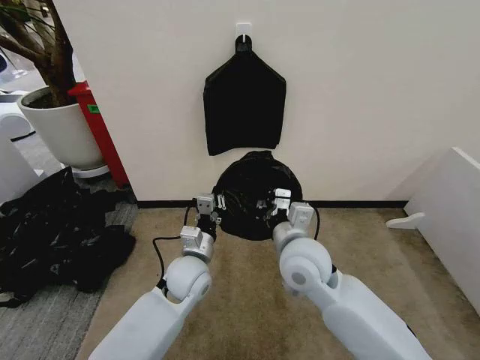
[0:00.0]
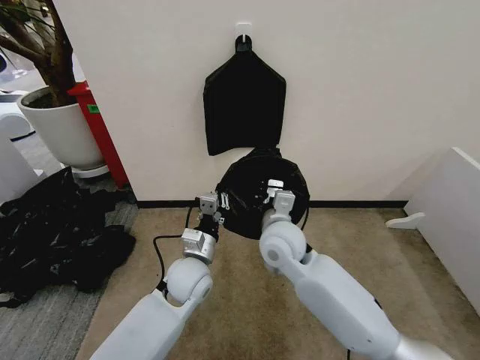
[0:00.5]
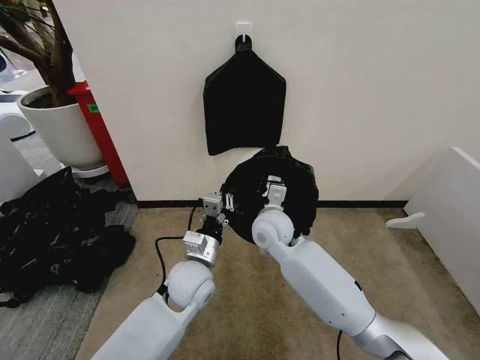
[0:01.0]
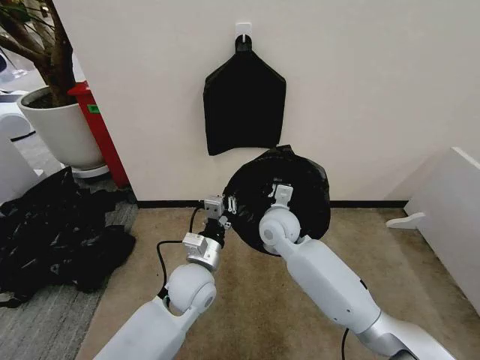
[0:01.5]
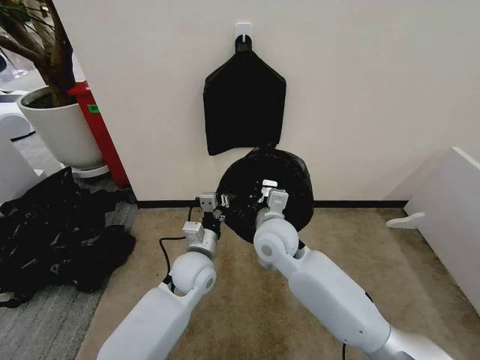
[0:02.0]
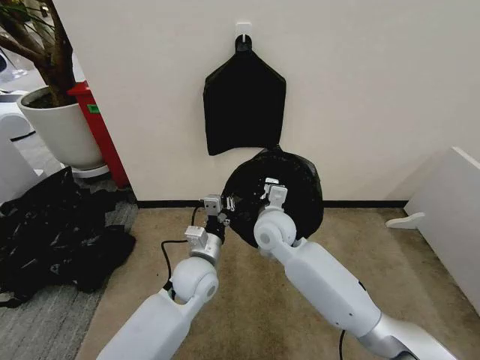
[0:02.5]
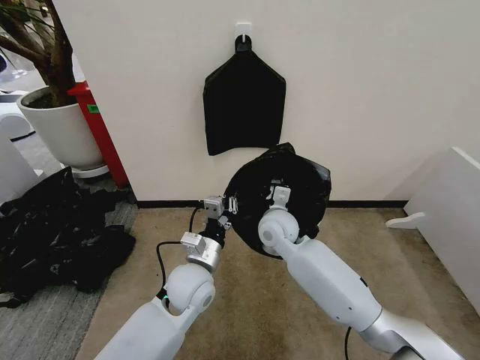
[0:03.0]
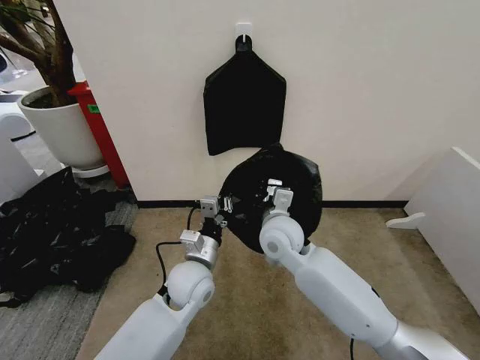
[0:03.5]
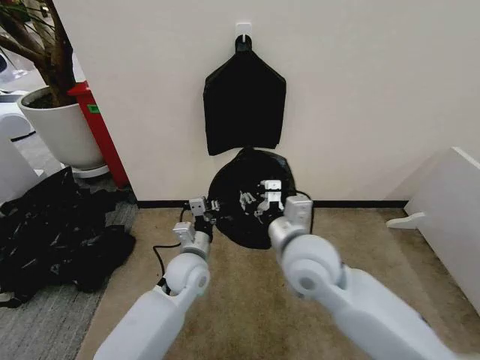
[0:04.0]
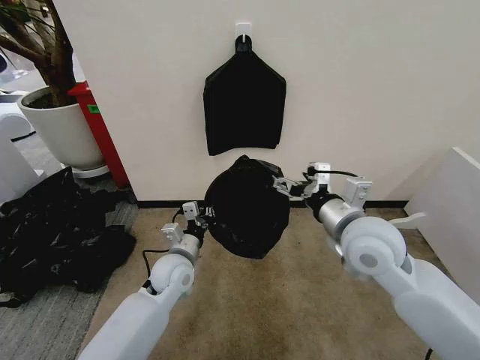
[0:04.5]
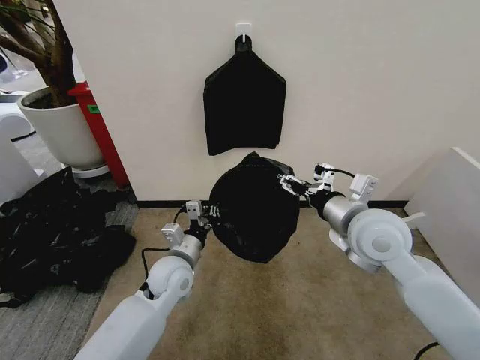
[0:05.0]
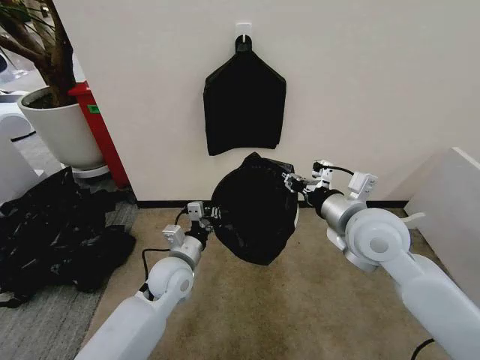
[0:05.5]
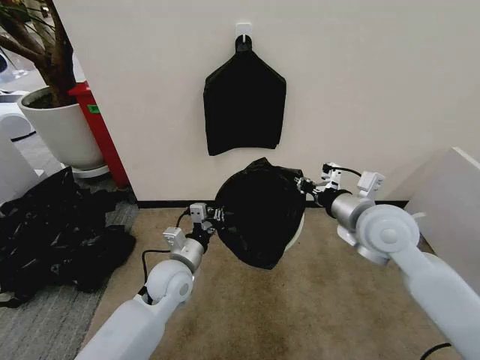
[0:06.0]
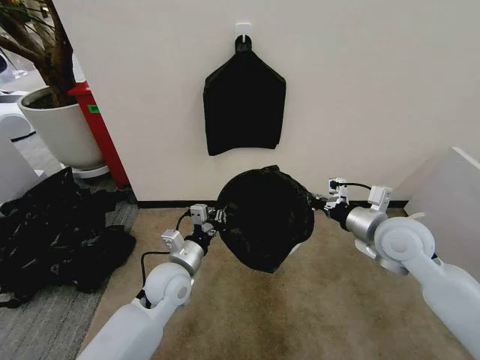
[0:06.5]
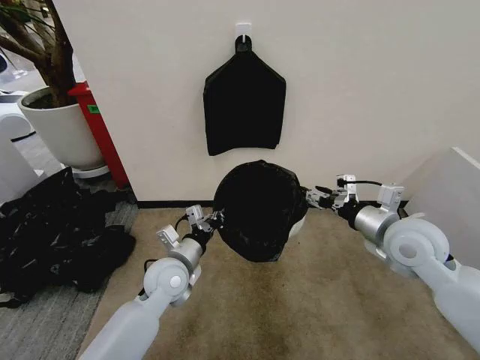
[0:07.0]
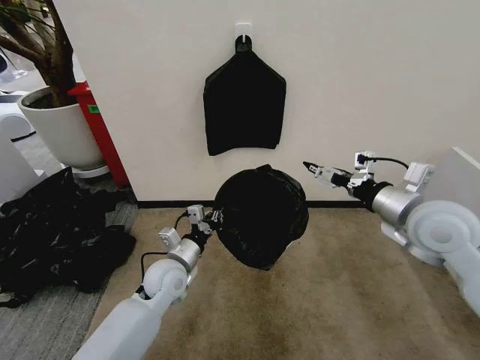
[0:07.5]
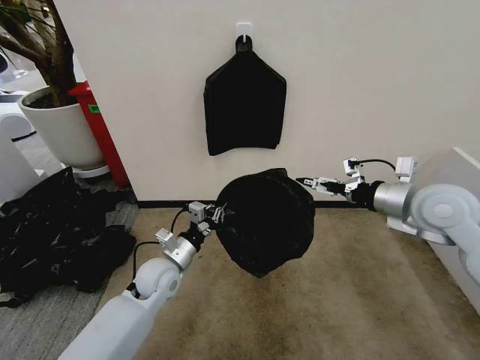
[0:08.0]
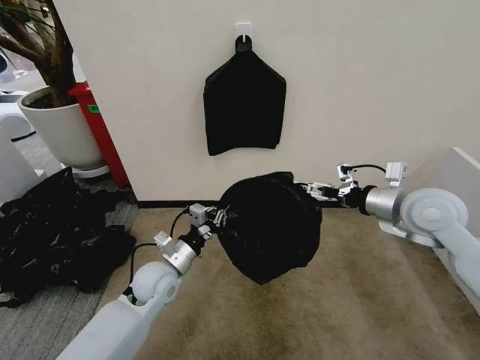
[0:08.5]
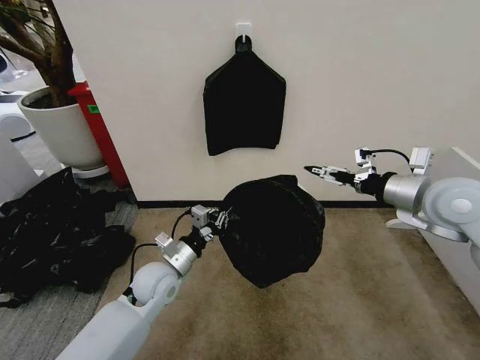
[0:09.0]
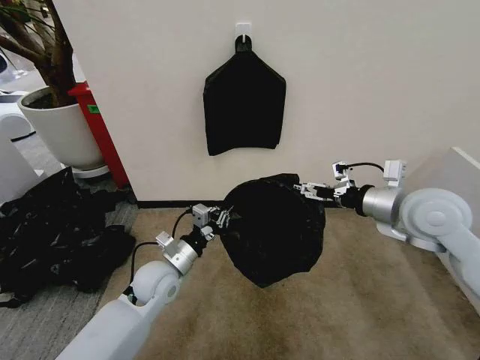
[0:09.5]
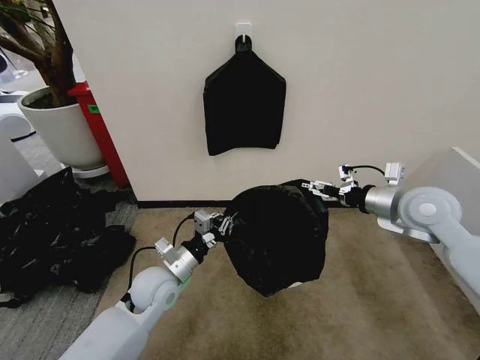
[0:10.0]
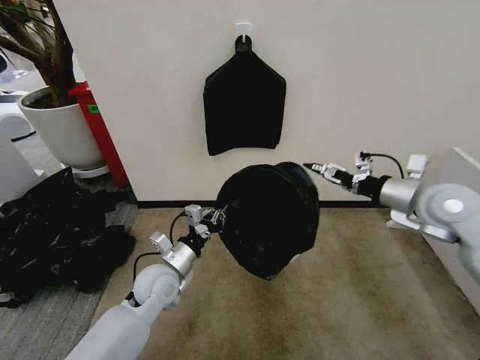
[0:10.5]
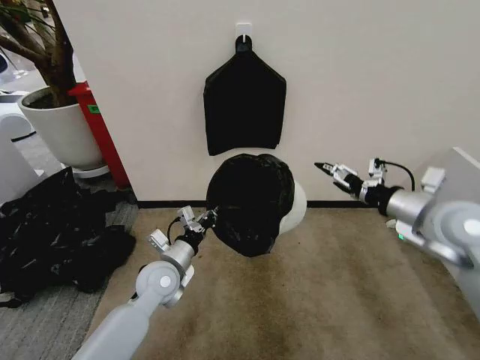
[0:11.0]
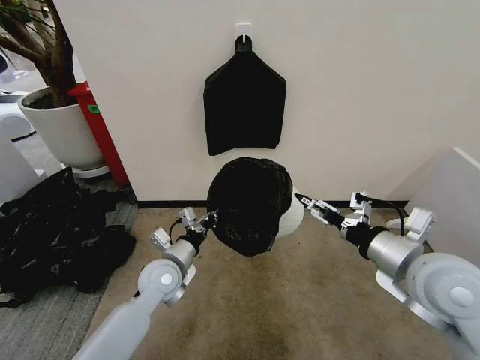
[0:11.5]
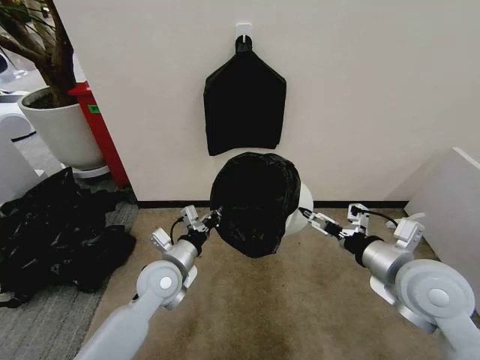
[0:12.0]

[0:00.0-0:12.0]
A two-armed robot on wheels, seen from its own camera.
Task of the whole recording: Place the garbage bag over the trash bin.
0:00.0 to 0:02.0: The right gripper goes some 5 cm forward.
0:02.0 to 0:04.0: The right gripper shifts approximately 10 cm backward and upward, and opens its fingers.
0:04.0 to 0:06.0: The right gripper moves to the right, about 15 cm, and opens and closes again.
0:06.0 to 0:08.0: The right gripper heads to the right, covering some 10 cm, and opens.
0:08.0 to 0:10.0: There are only small adjustments of the grippers.
0:10.0 to 0:12.0: The right gripper moves backward and to the left, approximately 15 cm.

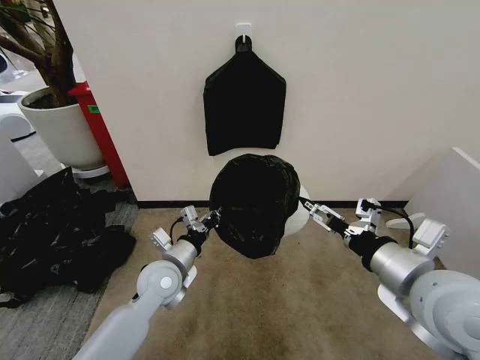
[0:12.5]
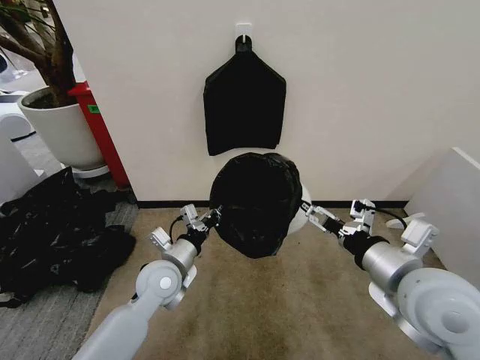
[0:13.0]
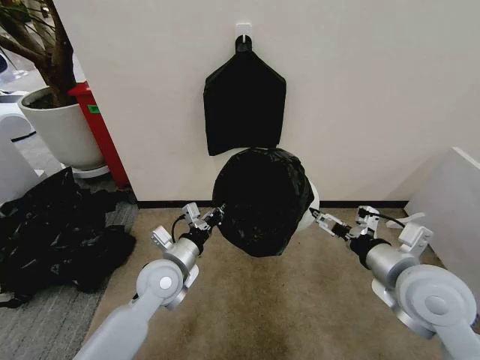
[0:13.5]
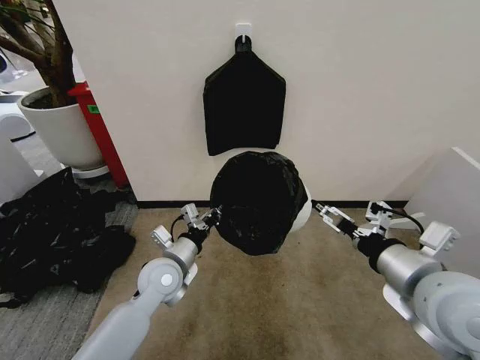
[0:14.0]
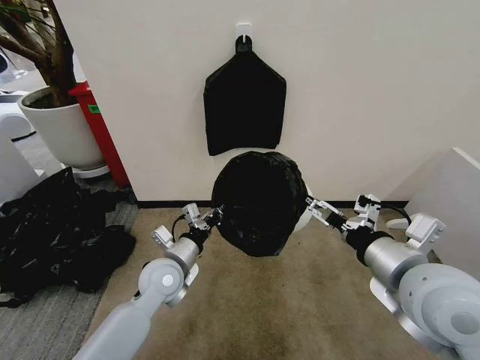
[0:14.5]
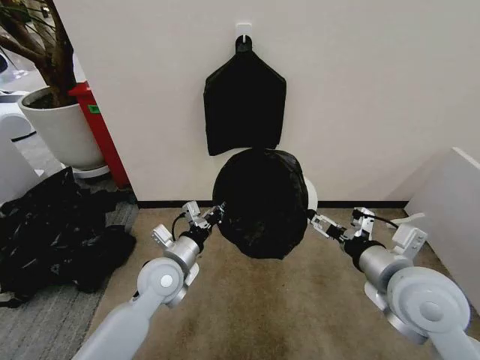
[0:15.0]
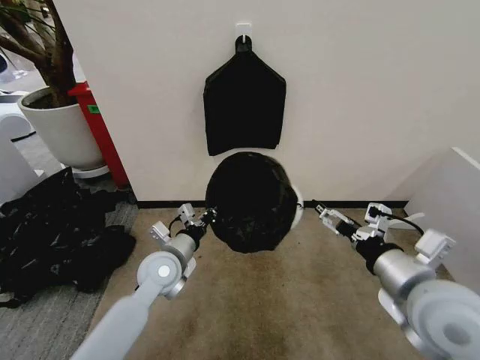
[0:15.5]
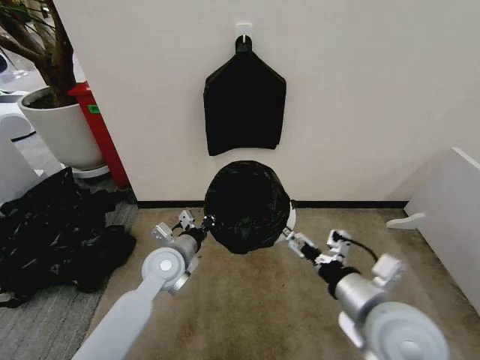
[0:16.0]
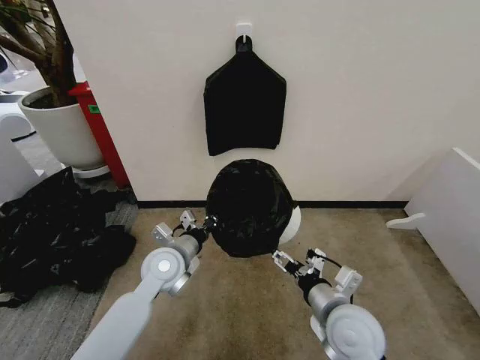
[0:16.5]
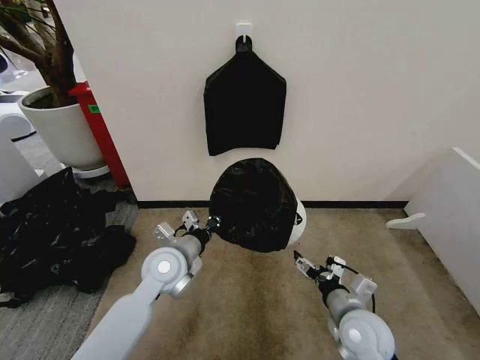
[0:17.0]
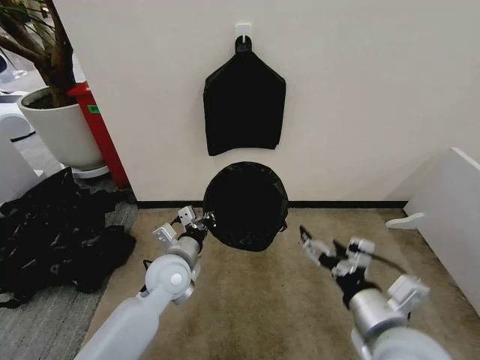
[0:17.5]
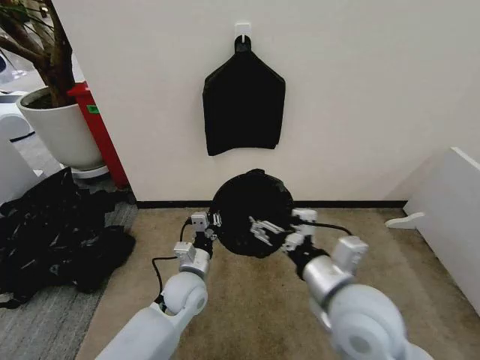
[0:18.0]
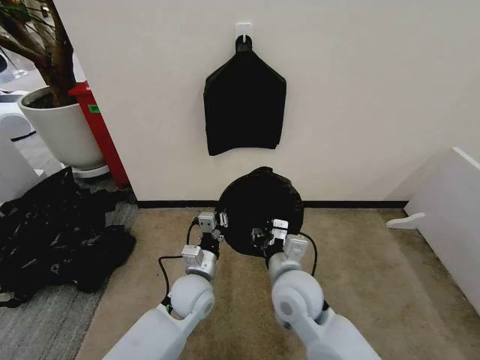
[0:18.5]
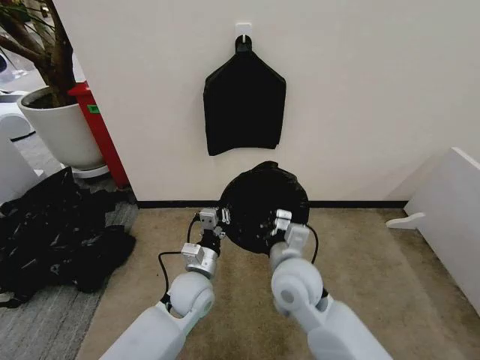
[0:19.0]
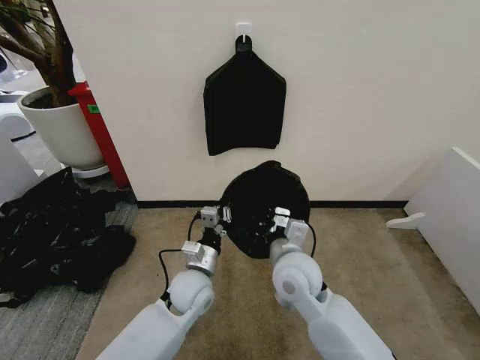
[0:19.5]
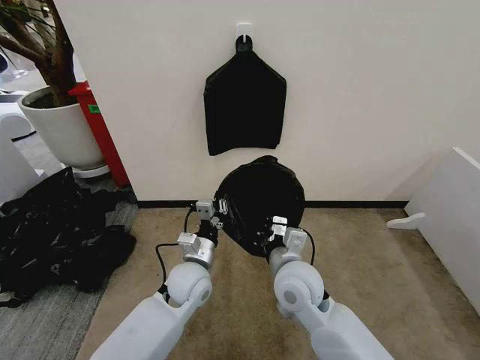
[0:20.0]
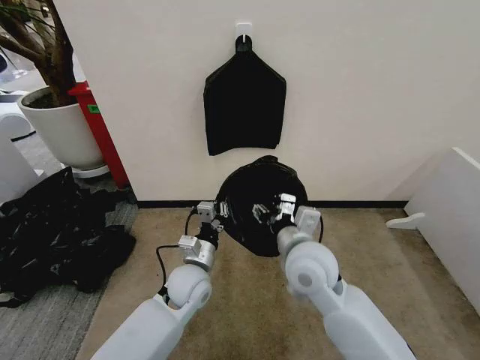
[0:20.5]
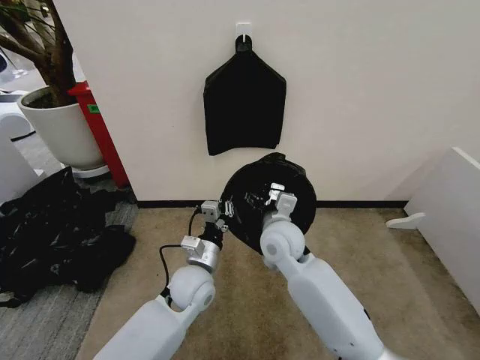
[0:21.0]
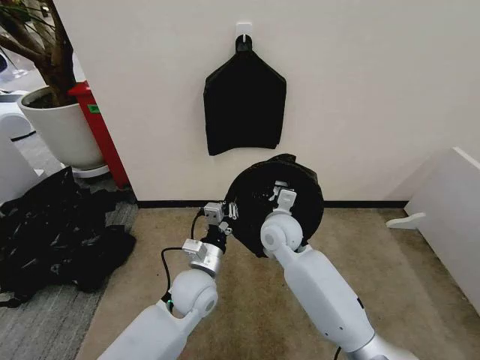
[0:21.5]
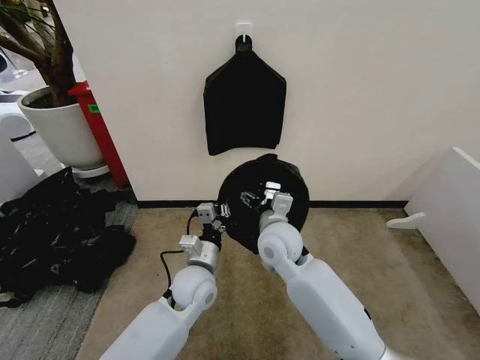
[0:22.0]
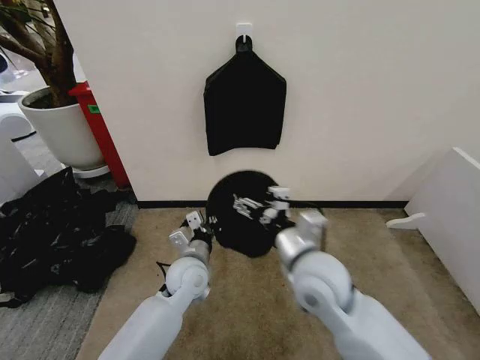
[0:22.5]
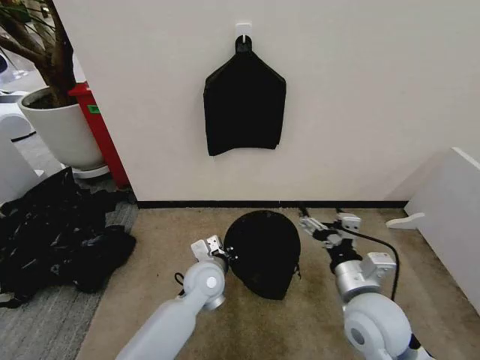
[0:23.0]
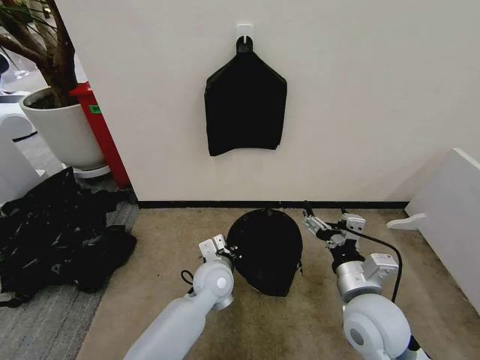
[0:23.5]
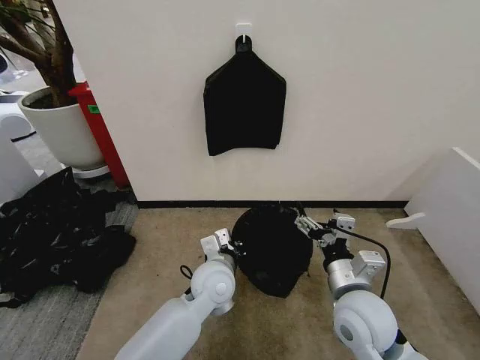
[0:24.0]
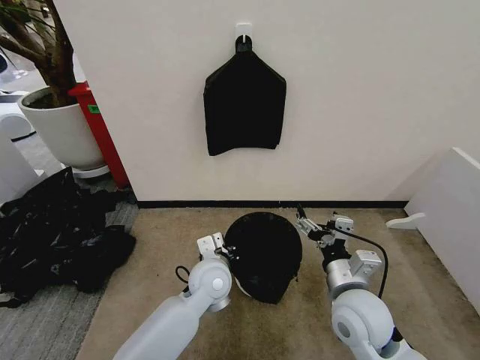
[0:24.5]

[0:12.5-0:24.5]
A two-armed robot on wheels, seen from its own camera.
Task of the whole recording: Place the garbage bag over the trash bin.
0:14.5 to 0:16.5: The right gripper travels downward by some 15 cm.
0:16.5 to 0:18.5: The left gripper heads downward and to the right, covering some 10 cm. Meanwhile the right gripper swings up and down, about 15 cm each way, with 2 reversals, and closes up.
0:18.5 to 0:20.5: The right gripper moves upward, some 5 cm, and closes and opens again.
0:20.5 to 0:22.5: The right gripper travels forward and back again, some 10 cm each way, and opens.
0:22.5 to 0:24.5: The left gripper travels to the right by roughly 5 cm, while the right gripper shifts approximately 10 cm to the right and downward.

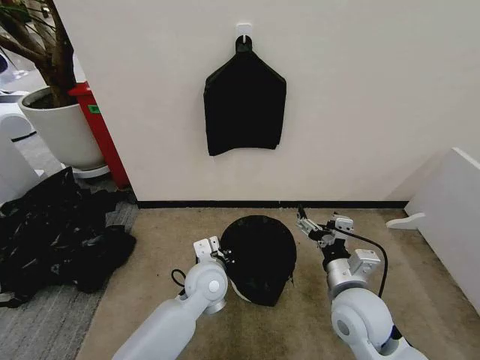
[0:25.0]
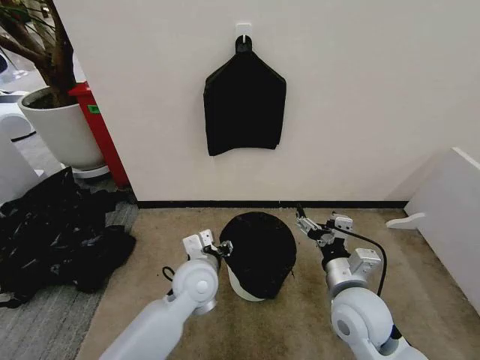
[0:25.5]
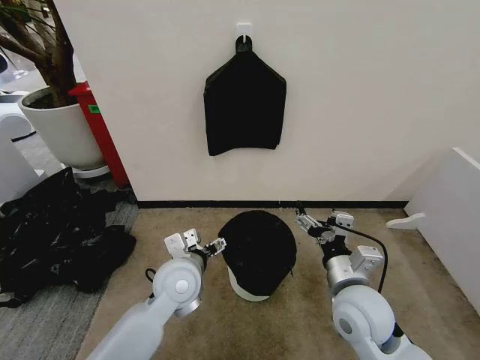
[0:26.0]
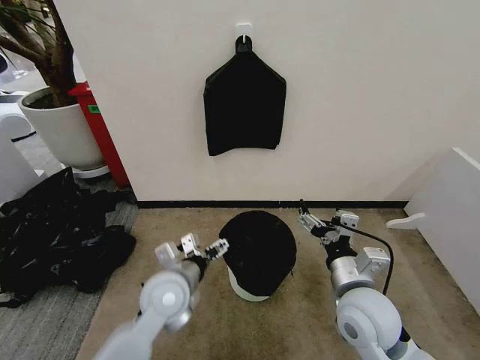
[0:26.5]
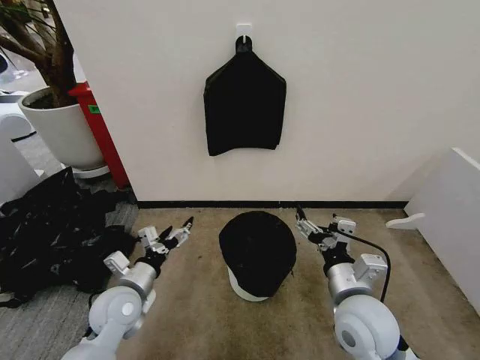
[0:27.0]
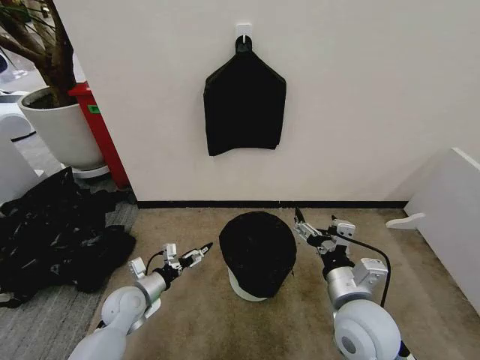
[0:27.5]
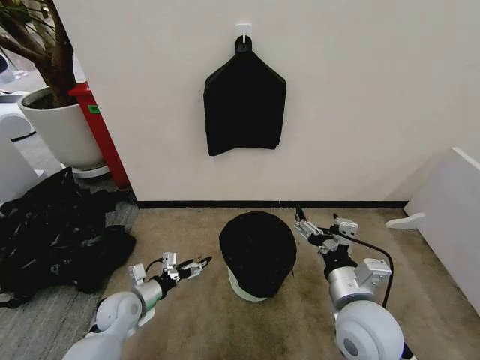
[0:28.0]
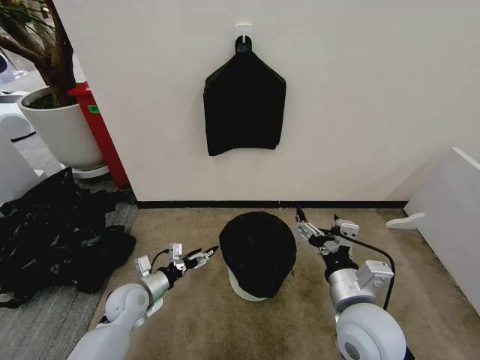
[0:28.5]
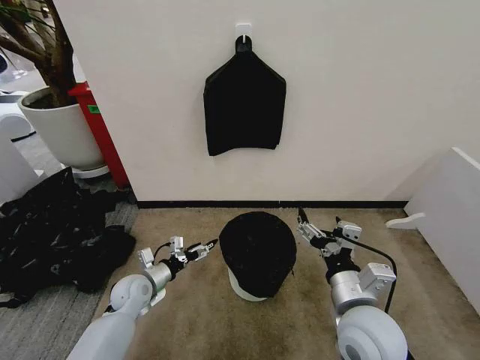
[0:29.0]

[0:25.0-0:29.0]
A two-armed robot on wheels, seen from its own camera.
Task of the whole recording: Place the garbage bag over the trash bin.
0:25.0 to 0:27.0: The left gripper shifts about 20 cm to the left, and opens its fingers.
0:27.0 to 0:29.0: The left gripper travels downward and forward by some 10 cm.
